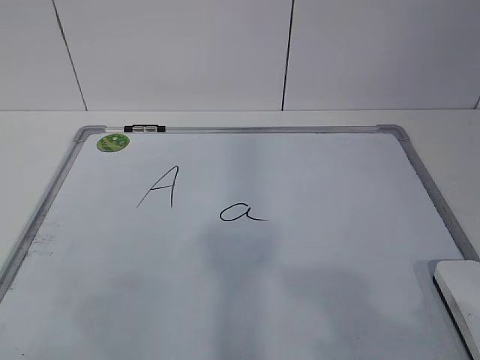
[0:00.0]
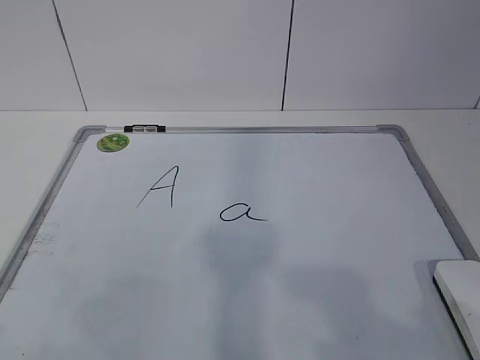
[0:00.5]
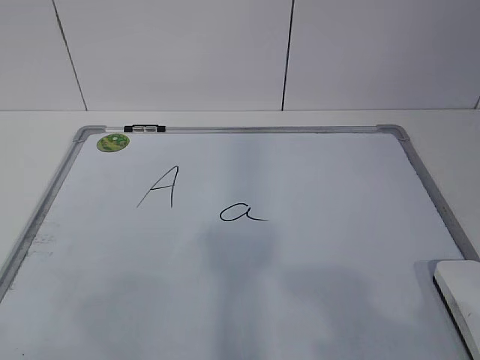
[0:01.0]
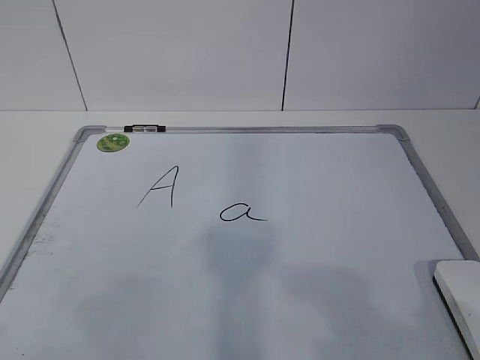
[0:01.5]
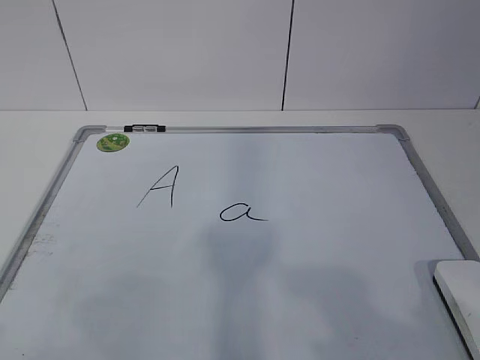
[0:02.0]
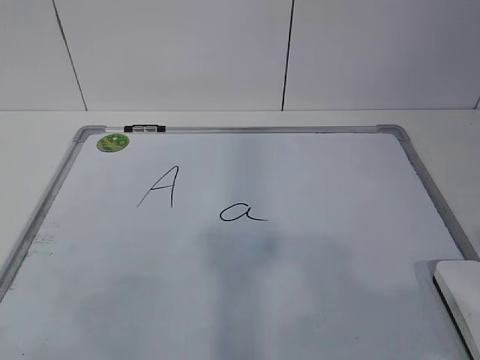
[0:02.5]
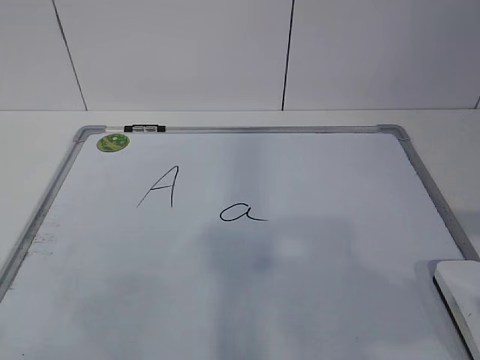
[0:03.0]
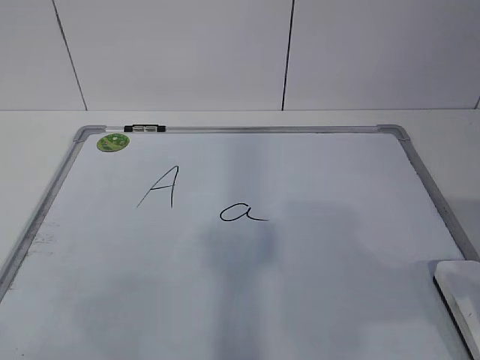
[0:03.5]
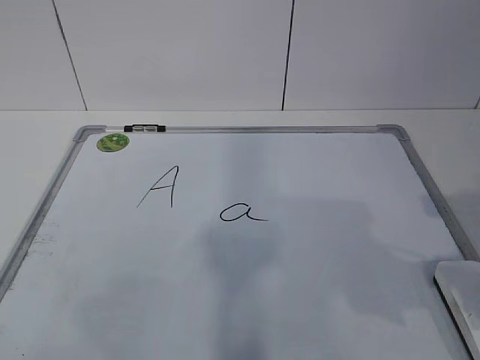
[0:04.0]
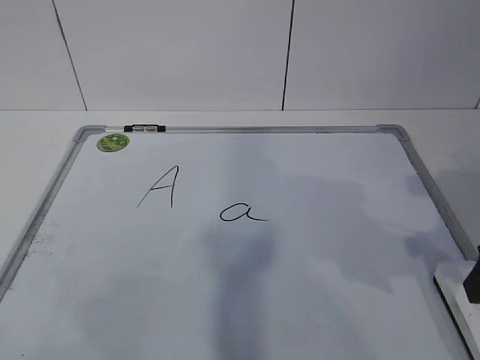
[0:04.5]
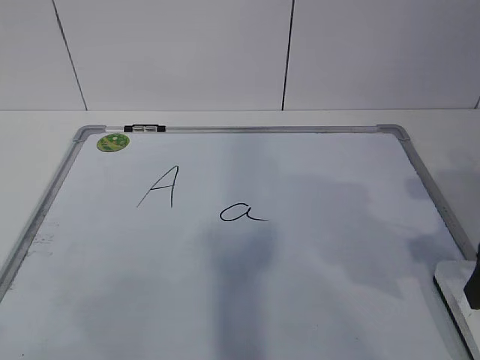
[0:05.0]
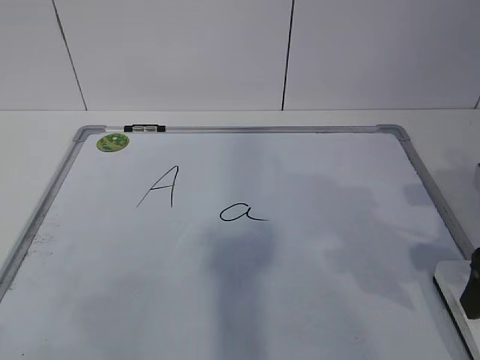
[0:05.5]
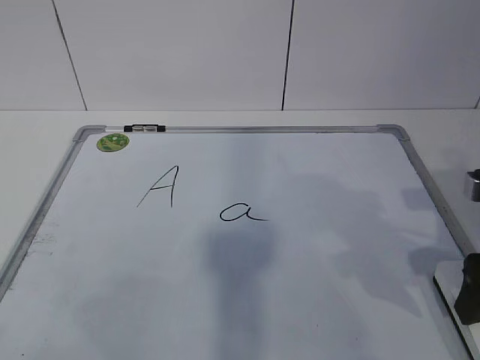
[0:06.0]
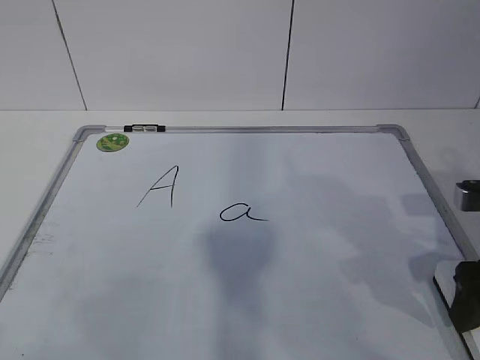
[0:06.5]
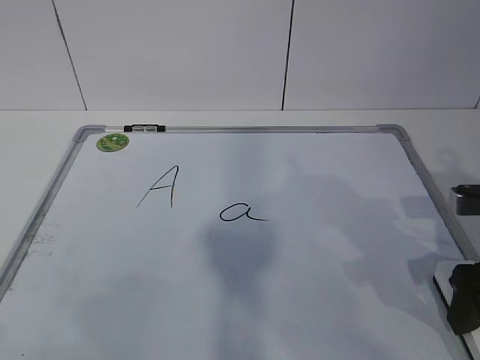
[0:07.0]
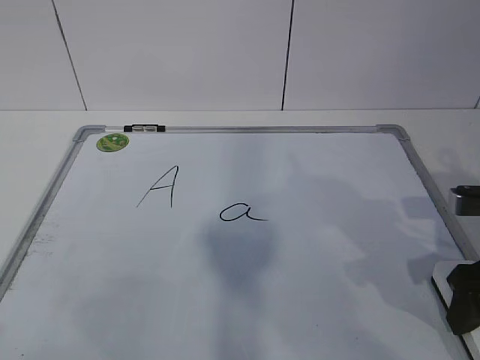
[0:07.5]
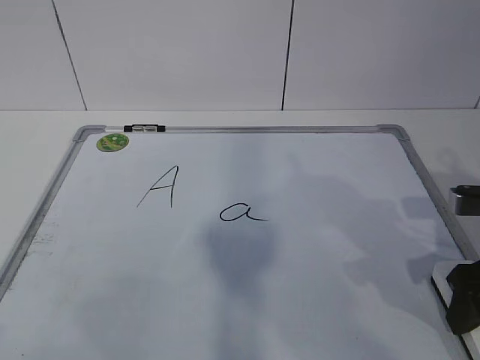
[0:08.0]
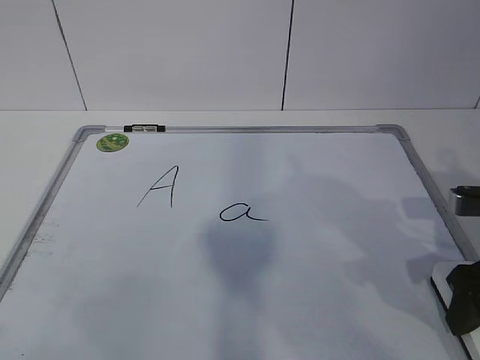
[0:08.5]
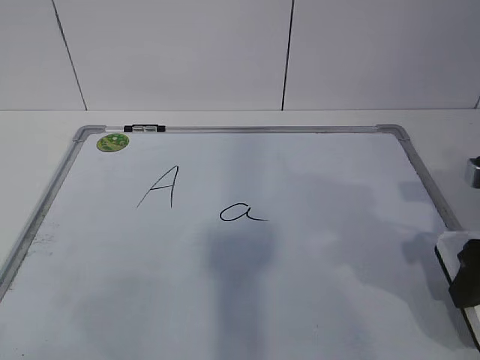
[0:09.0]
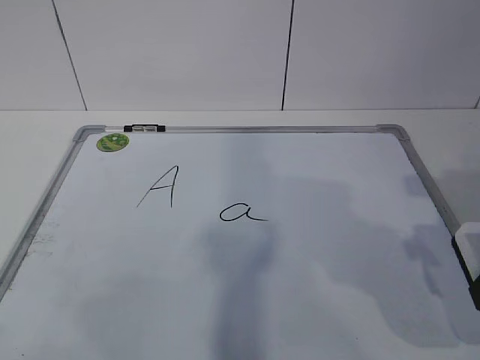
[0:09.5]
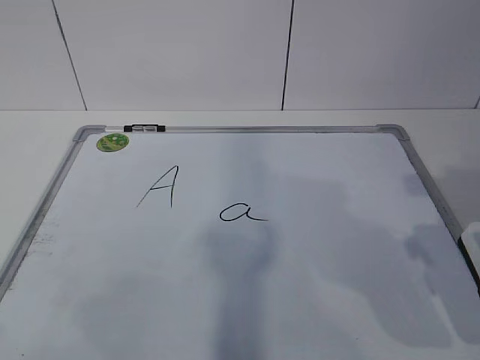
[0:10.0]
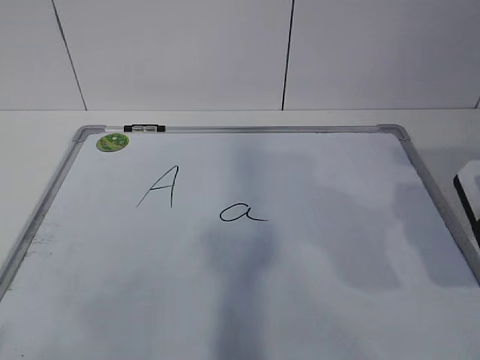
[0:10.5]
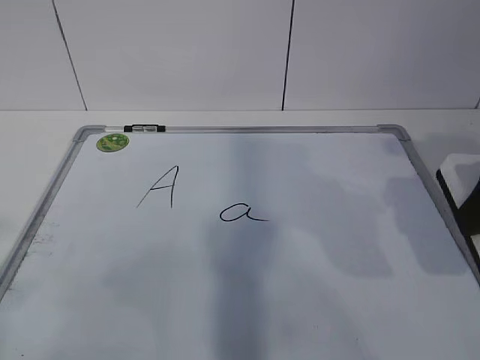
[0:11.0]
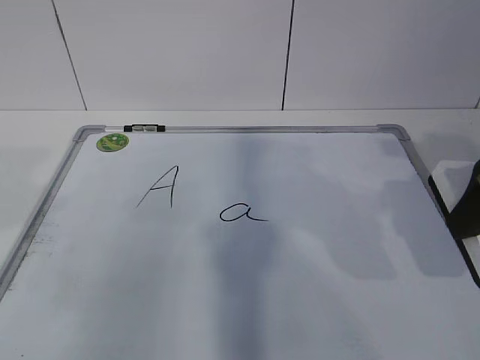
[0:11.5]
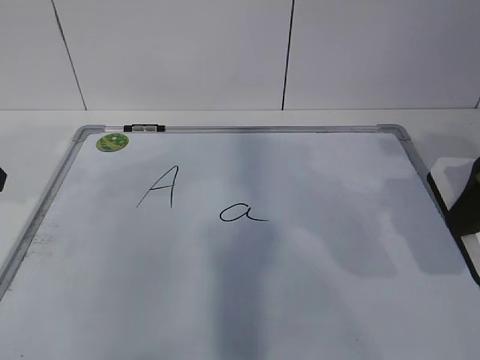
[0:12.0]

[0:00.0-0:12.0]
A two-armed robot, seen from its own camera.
Task of the whole recording: pick up the eraser on the blackboard and erase the letter "a".
Step, 0:06.5 to 0:11.5: Hold the drawing board steady with your left hand.
0:02.0 to 0:04.0: The right gripper travels forward by about 15 cm, and opens its fingers.
0:04.0 to 0:06.0: The right gripper travels forward by about 5 cm, and opens up.
0:06.0 to 0:08.0: The right gripper closes its fingers.
0:08.0 to 0:10.0: The right gripper moves upward and backward, approximately 10 cm.
0:10.0 to 0:12.0: The right gripper heads forward, covering some 5 cm.

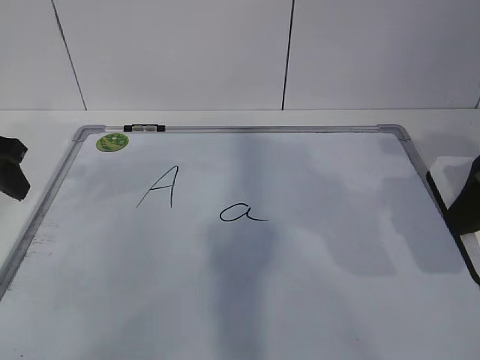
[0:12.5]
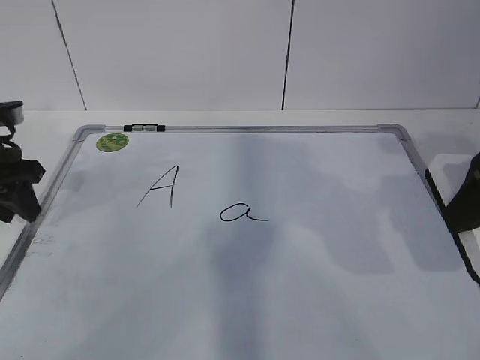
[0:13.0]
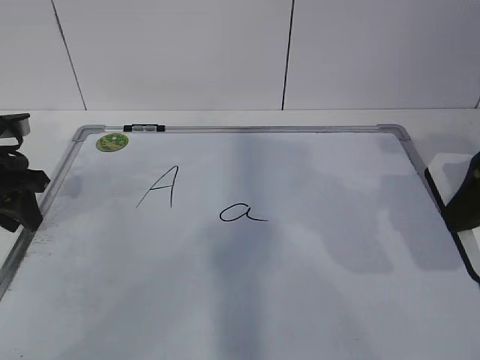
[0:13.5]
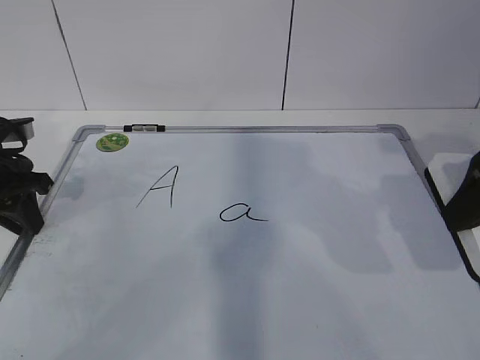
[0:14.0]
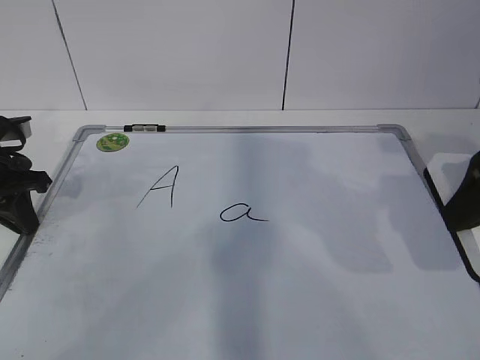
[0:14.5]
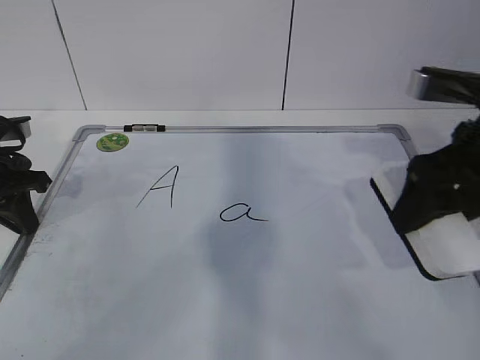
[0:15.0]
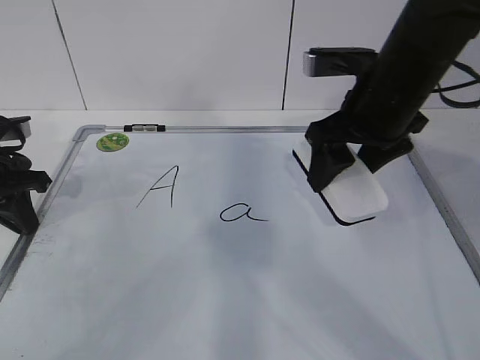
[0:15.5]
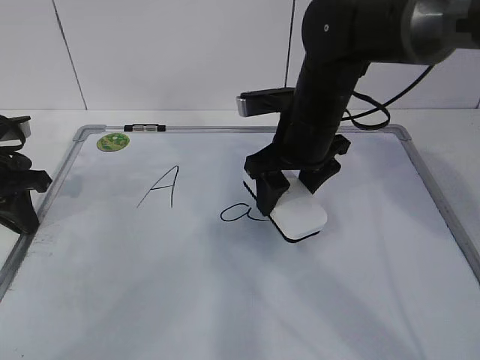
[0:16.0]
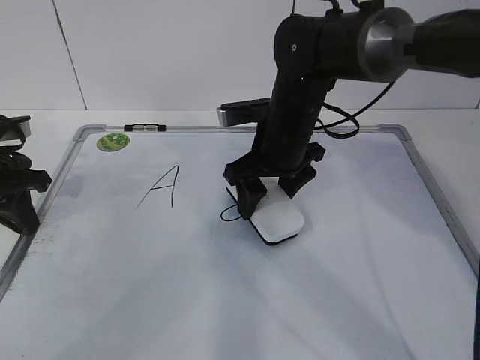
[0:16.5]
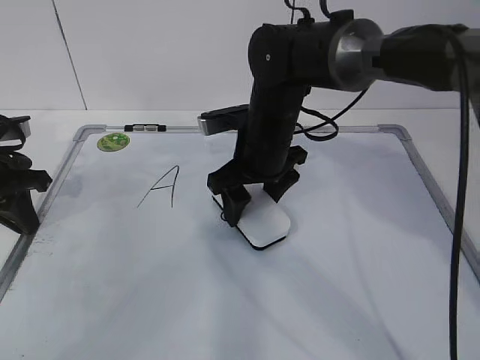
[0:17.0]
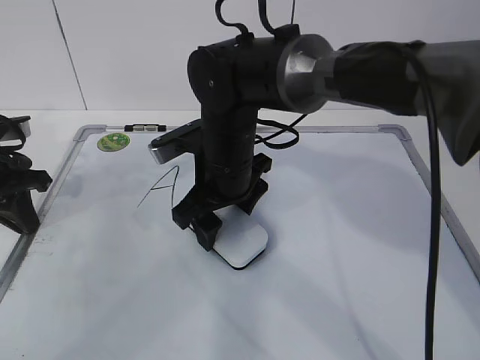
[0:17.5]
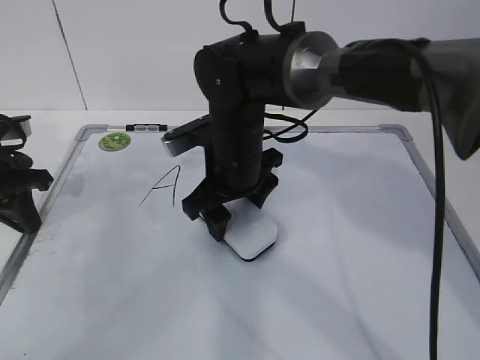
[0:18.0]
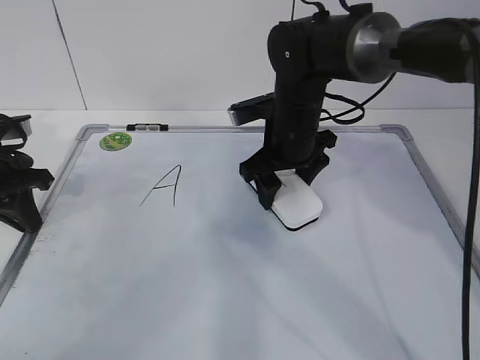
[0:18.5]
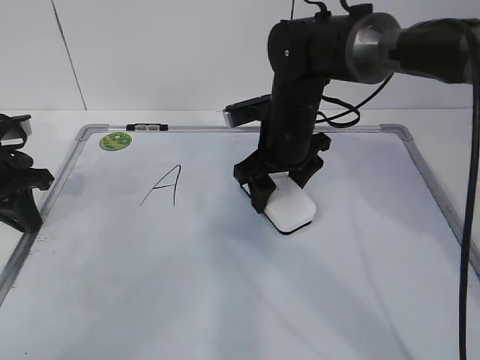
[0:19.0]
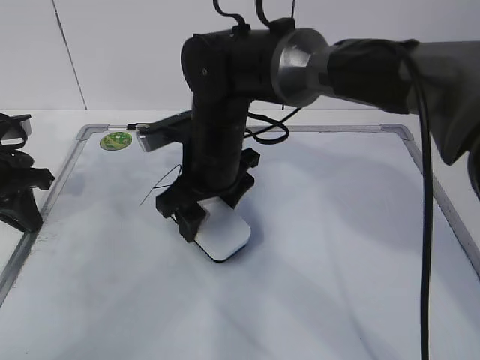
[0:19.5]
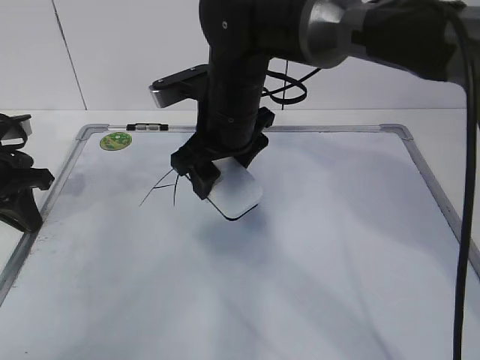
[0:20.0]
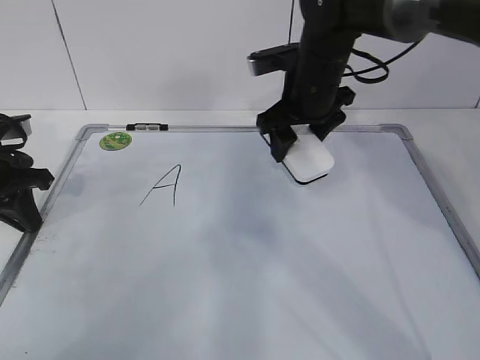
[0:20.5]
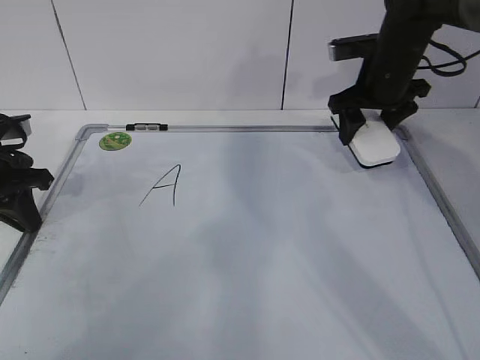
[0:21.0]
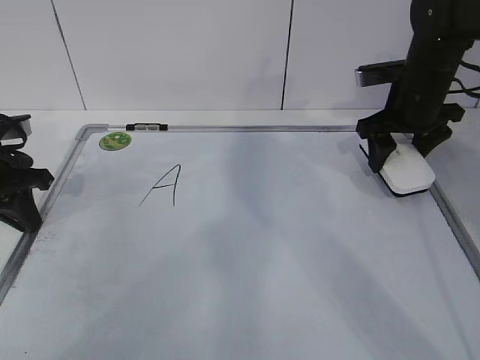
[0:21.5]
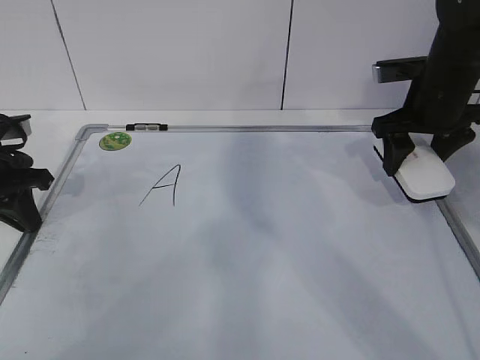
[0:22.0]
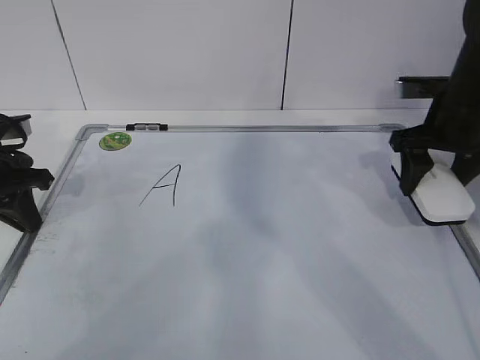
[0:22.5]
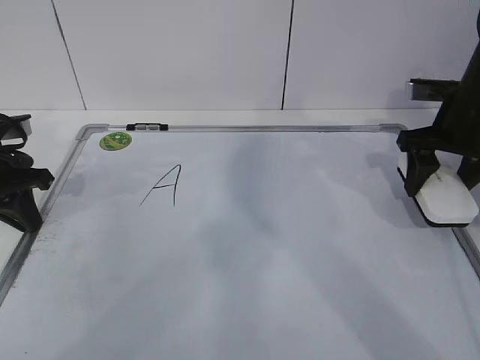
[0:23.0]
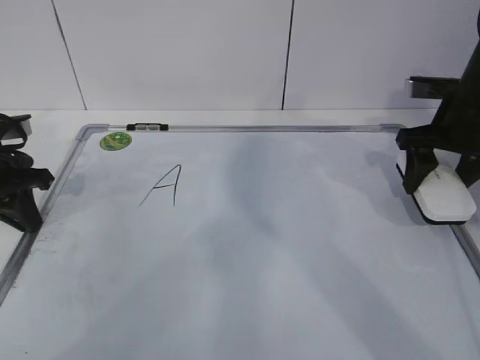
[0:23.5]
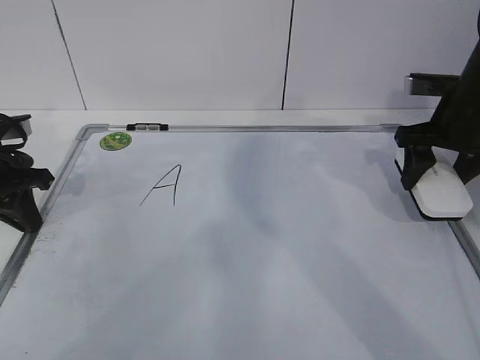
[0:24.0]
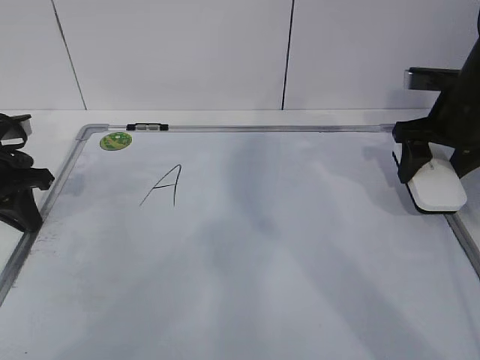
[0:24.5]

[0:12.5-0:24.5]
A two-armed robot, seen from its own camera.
Task of the whole recording: pick up the eraser on the blackboard and erase the letter "a".
Step, 0:12.5 to 0:16.0: Erase the letter a with your right hand.
Step, 0:16.5 to 0:21.0: Put down the eraser with your right hand.
0:12.5 to 0:14.5: The left gripper moves downward, roughly 5 cm, and closes.
0:14.5 to 0:16.5: The right gripper is displaced to the left, forward and downward by some 25 cm.
0:16.5 to 0:18.5: The right gripper moves roughly 5 cm to the left and comes back.
0:18.5 to 0:20.5: The right gripper moves some 10 cm to the left and comes back.
0:20.5 to 0:22.5: The right gripper is displaced to the right by approximately 15 cm.
0:22.5 to 0:24.5: The grippers move only a little.

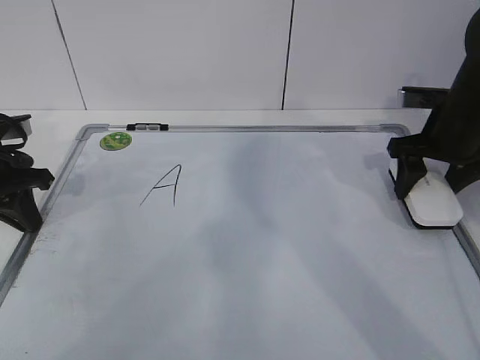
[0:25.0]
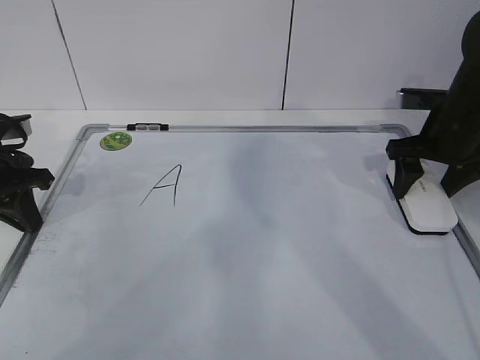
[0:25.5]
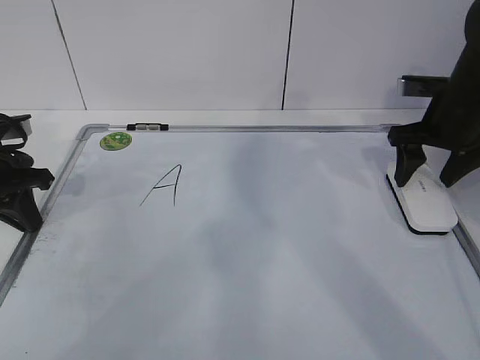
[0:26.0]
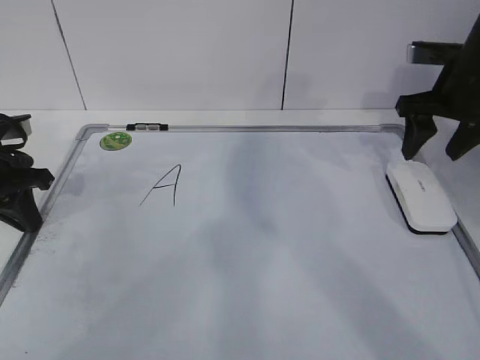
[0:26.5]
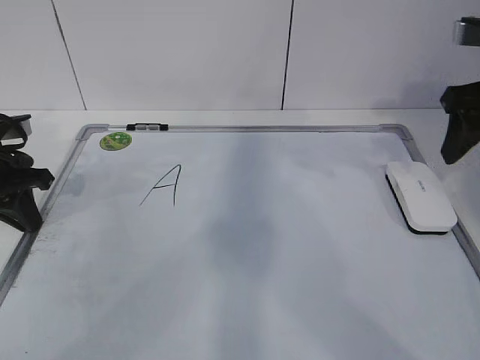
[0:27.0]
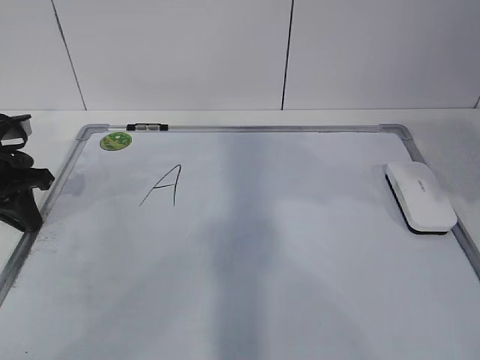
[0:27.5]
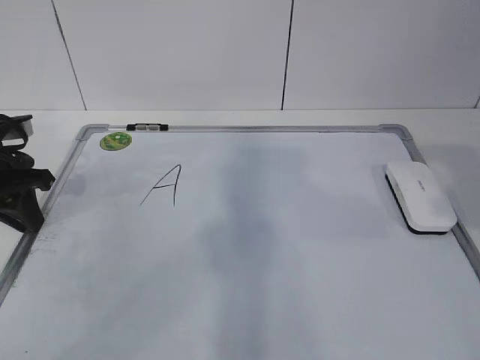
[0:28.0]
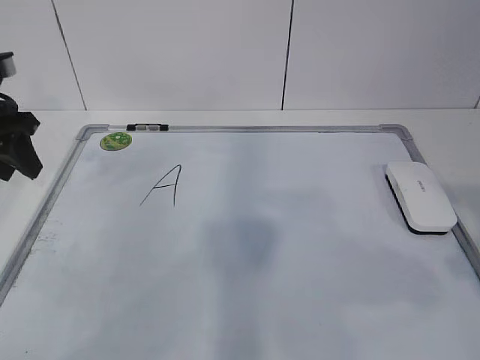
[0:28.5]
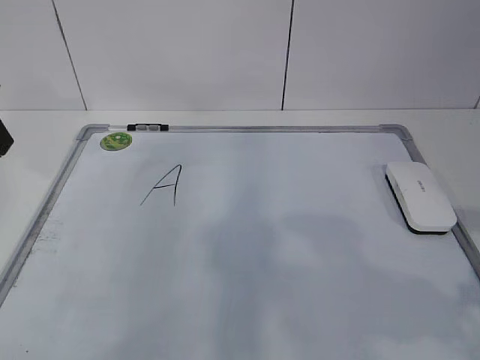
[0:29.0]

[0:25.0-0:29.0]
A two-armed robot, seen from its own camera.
Task of the whole recording: pick up the eraser on the blackboard and erase the letter "a".
0:25.0 to 0:27.0: The right gripper moves upward and backward, about 10 cm, and opens, then closes again.
0:27.0 to 0:29.0: The left gripper goes about 15 cm upward, and opens. The right gripper heads backward, covering approximately 25 cm.
